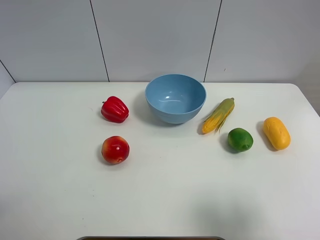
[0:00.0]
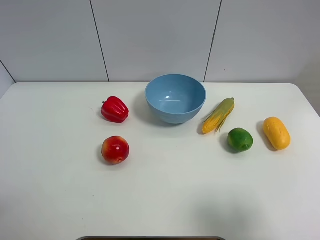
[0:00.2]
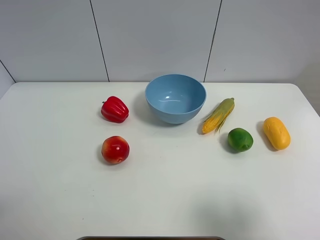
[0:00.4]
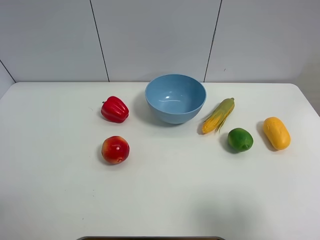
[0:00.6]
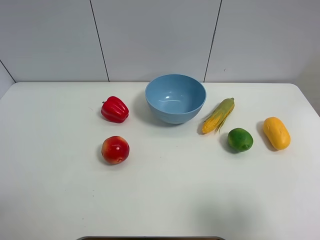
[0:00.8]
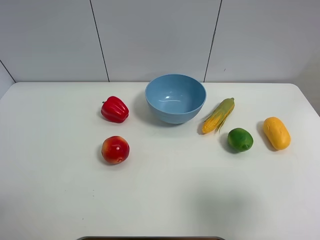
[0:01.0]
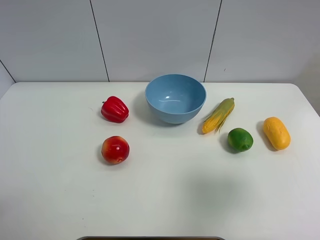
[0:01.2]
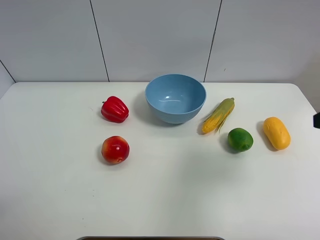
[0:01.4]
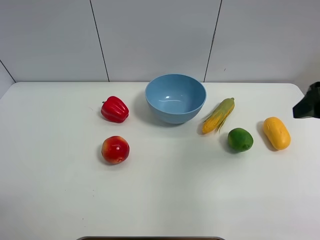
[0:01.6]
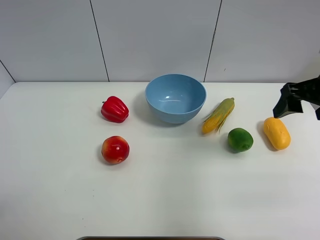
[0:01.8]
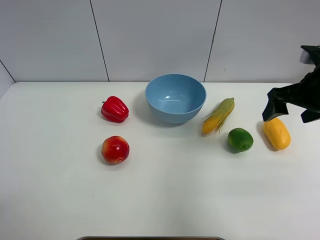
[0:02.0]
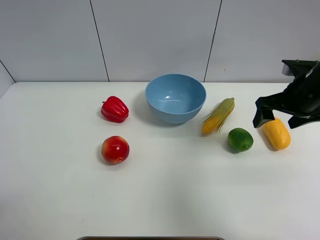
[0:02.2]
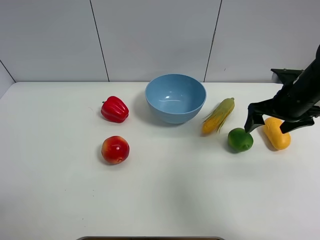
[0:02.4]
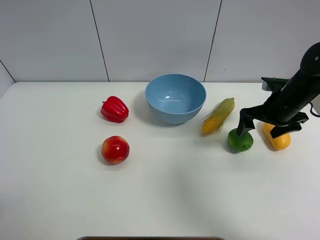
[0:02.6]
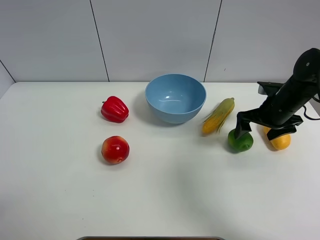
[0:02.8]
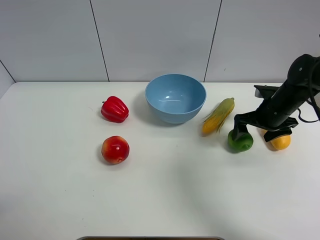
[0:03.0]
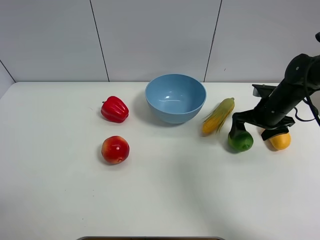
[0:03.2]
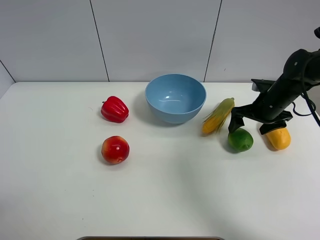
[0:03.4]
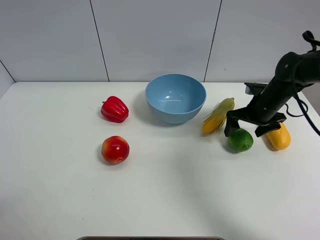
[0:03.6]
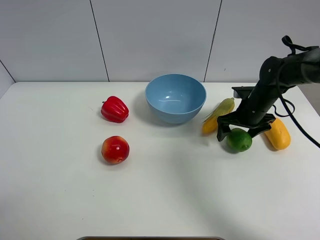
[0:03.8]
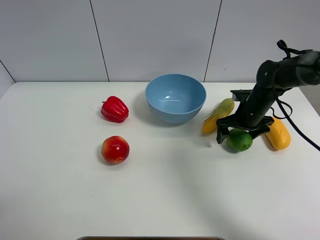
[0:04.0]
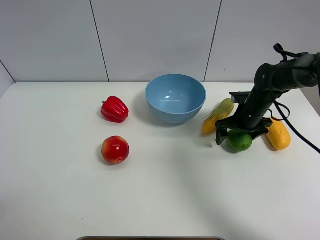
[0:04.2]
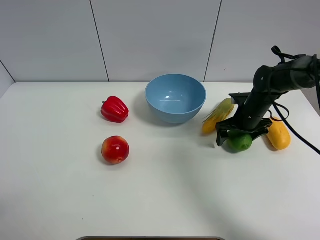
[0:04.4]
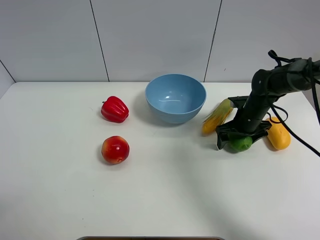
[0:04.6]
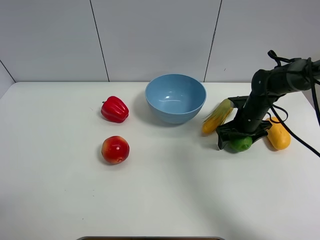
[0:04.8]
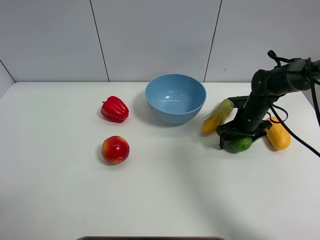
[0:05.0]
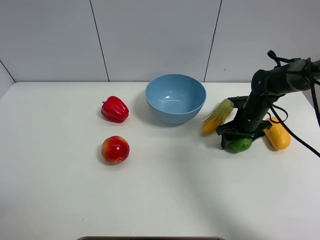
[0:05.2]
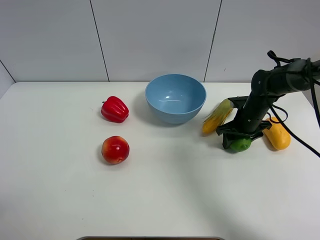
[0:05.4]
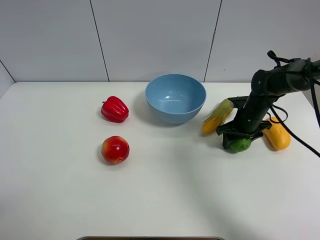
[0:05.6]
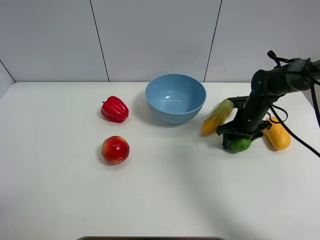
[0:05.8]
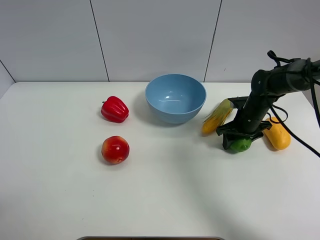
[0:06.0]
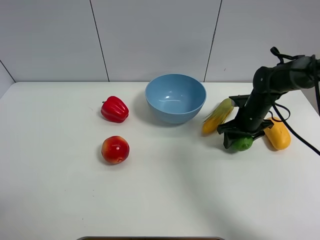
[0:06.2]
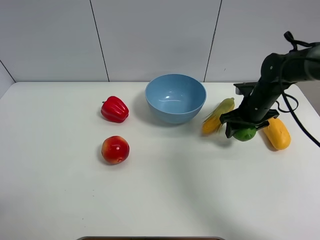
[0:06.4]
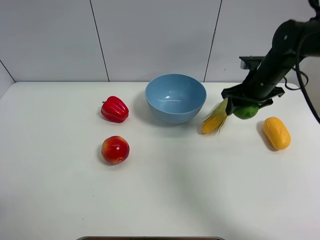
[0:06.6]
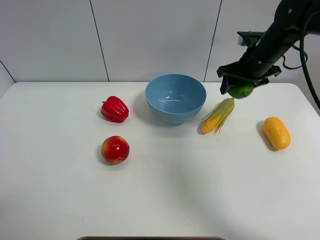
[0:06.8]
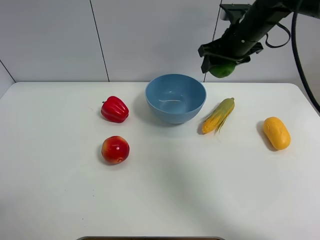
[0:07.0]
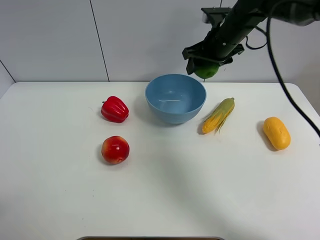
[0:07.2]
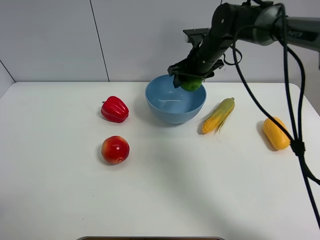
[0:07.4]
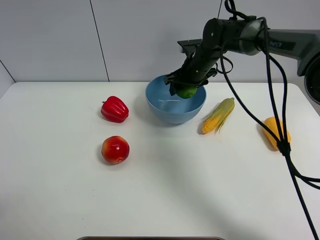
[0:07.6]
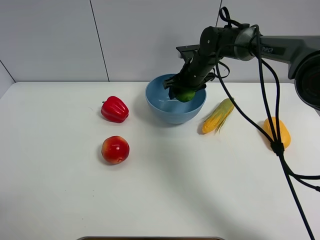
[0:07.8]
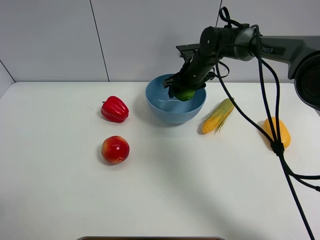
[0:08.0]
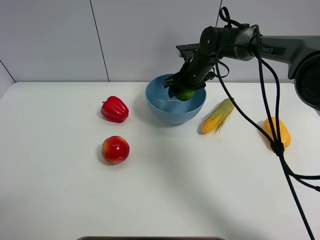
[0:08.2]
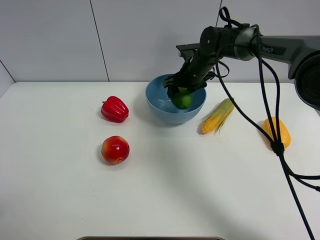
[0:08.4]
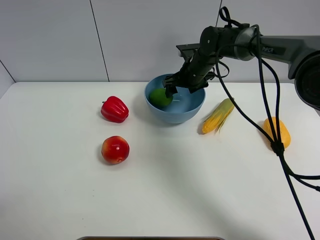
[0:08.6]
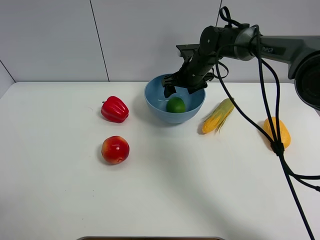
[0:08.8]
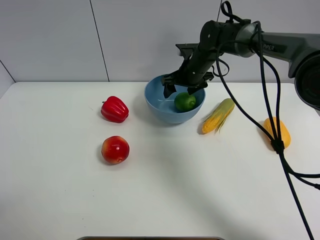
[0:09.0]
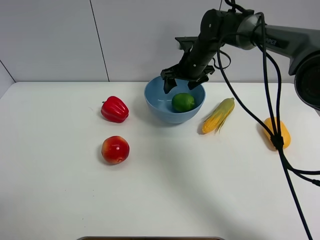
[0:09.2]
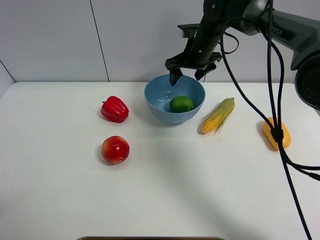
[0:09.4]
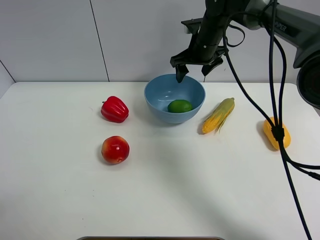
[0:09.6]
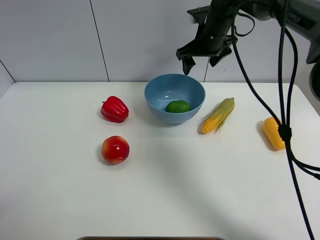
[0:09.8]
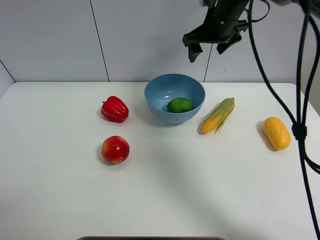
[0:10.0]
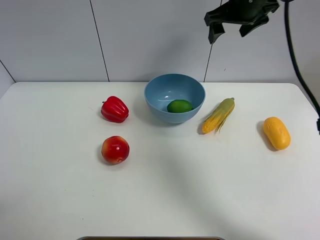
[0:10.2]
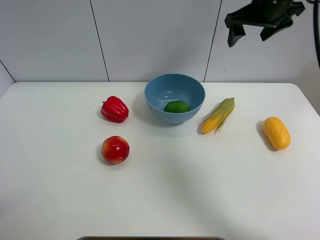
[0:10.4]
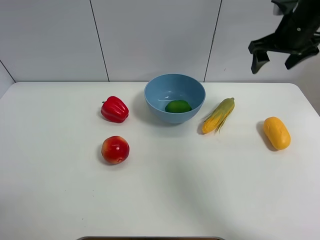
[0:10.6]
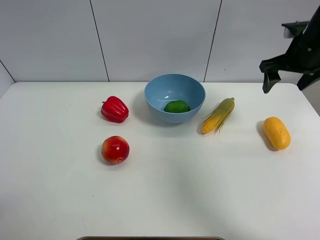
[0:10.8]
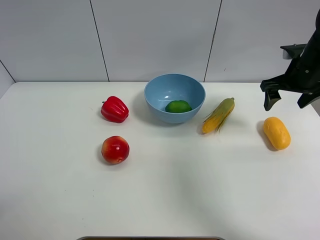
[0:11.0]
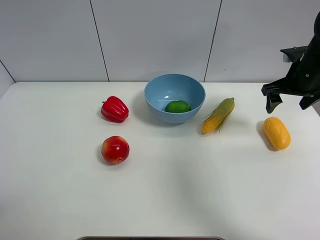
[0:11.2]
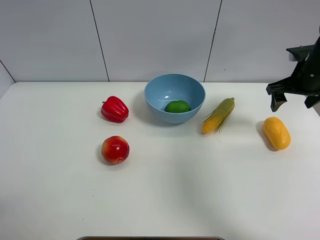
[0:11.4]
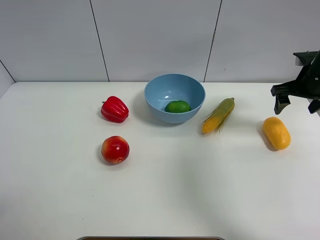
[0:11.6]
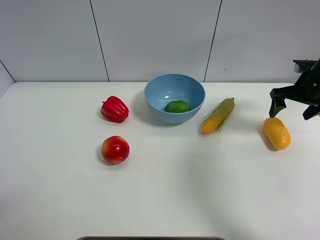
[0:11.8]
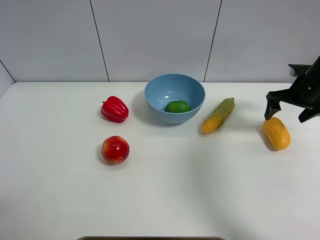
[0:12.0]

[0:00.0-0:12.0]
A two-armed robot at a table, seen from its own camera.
Task of the whole recording: Put the three fruits on the table into a bowl.
Step, 0:00.0 to 0:05.4: Grasp the green lemon with right gripper.
Step, 0:05.6 to 0:08.6: Place the green lemon in the blue bowl with right gripper.
0:00.0 to 0:01.6: The right gripper goes roughly 20 cm forward.
0:01.6 to 0:03.0: The right gripper heads downward and forward, covering approximately 25 cm.
0:03.0 to 0:04.4: The right gripper shifts by approximately 5 cm.
0:04.4 to 0:06.0: The right gripper closes.
0:06.0 to 0:07.6: The right gripper heads to the left, upward and forward, covering approximately 20 cm.
0:07.6 to 0:09.0: The right gripper opens up.
0:09.0 to 0:10.4: The right gripper goes about 20 cm upward and to the right.
0:10.4 to 0:12.0: The right gripper travels downward and to the right by some 20 cm.

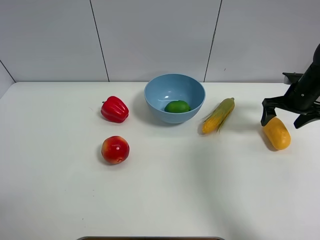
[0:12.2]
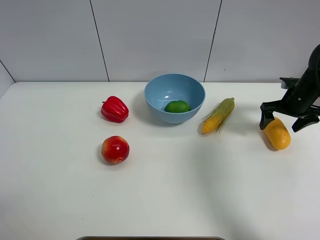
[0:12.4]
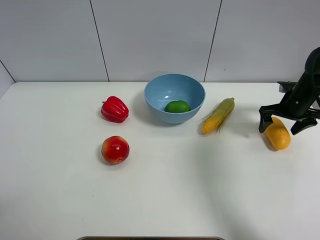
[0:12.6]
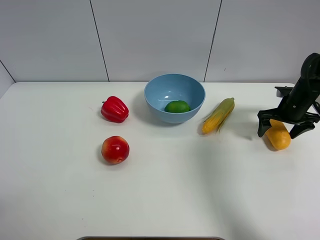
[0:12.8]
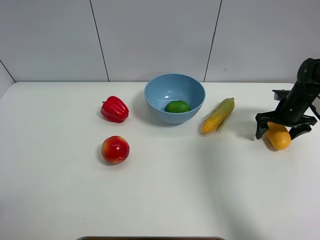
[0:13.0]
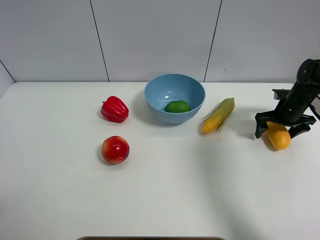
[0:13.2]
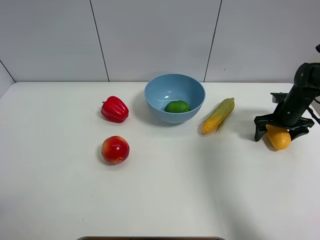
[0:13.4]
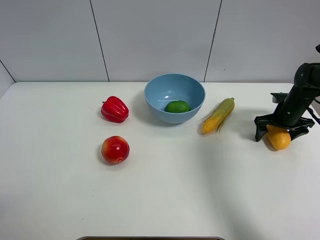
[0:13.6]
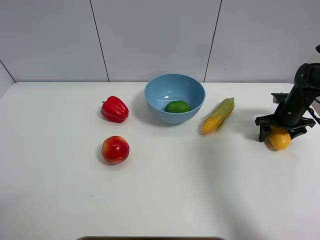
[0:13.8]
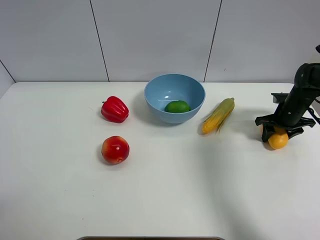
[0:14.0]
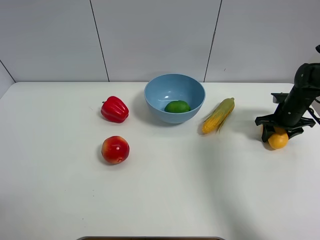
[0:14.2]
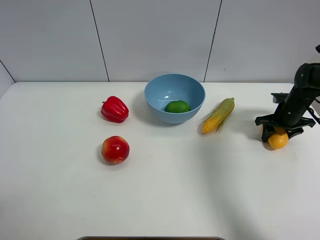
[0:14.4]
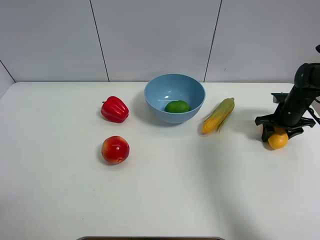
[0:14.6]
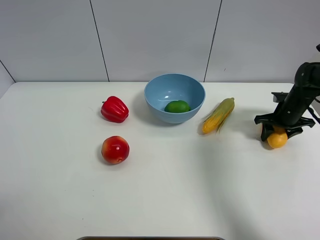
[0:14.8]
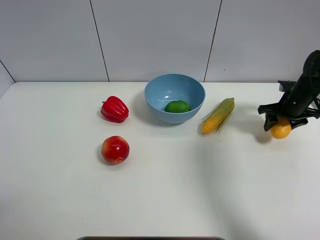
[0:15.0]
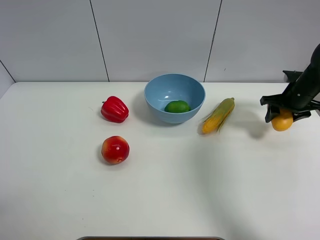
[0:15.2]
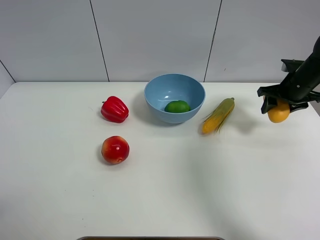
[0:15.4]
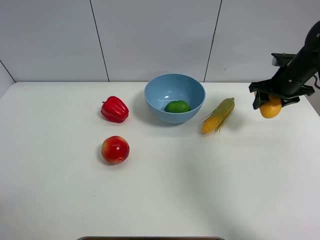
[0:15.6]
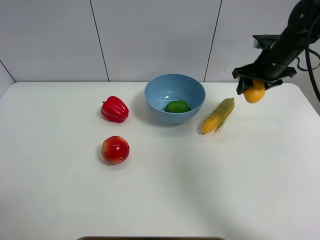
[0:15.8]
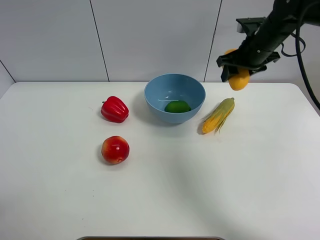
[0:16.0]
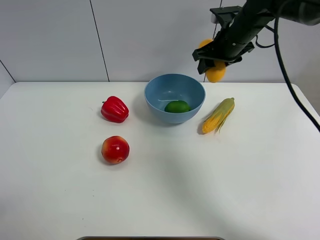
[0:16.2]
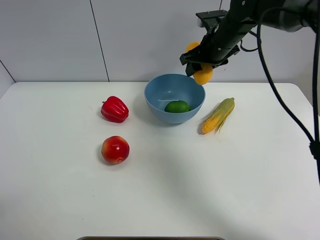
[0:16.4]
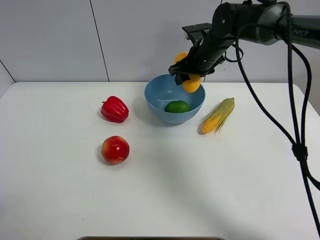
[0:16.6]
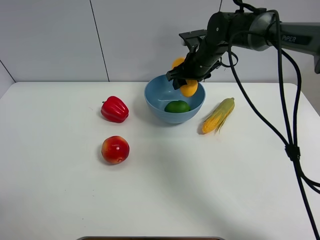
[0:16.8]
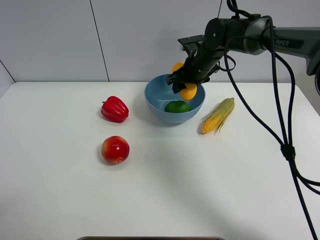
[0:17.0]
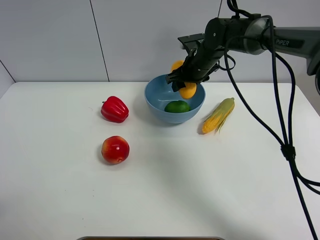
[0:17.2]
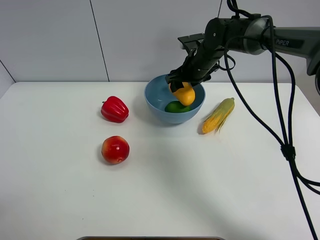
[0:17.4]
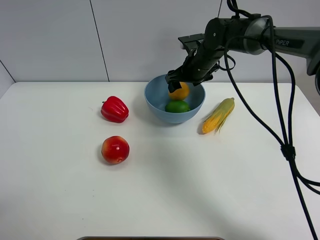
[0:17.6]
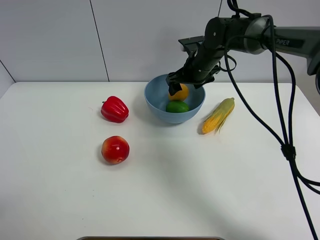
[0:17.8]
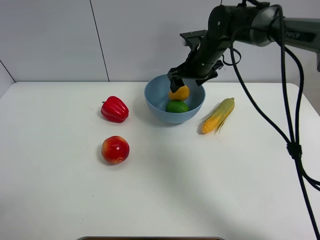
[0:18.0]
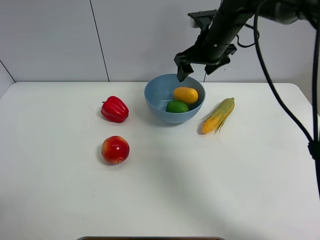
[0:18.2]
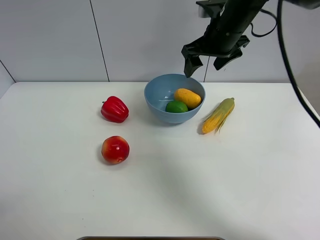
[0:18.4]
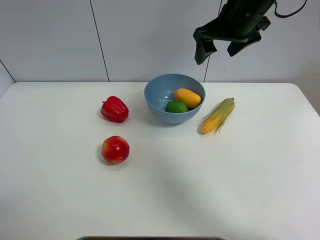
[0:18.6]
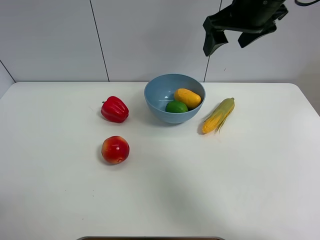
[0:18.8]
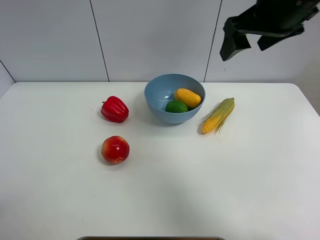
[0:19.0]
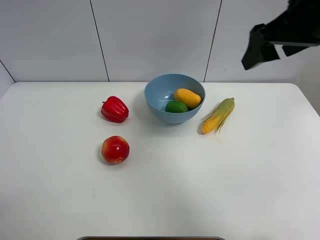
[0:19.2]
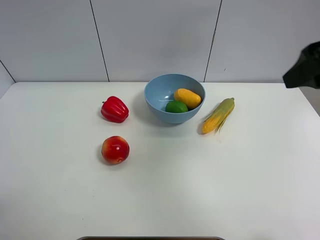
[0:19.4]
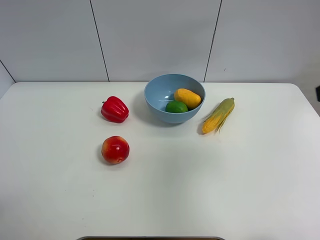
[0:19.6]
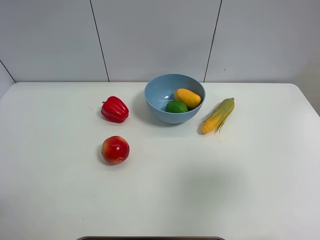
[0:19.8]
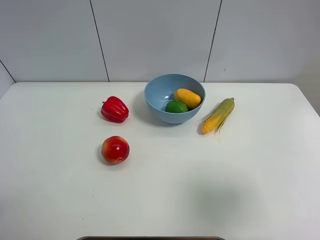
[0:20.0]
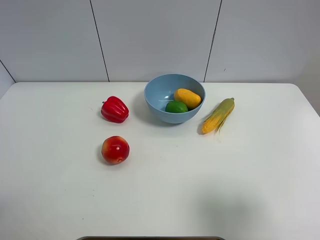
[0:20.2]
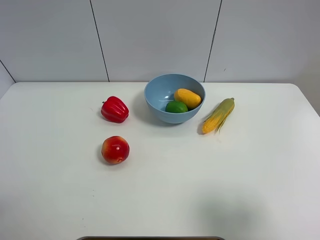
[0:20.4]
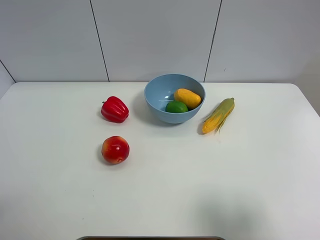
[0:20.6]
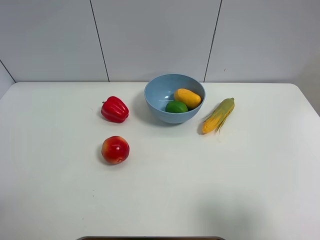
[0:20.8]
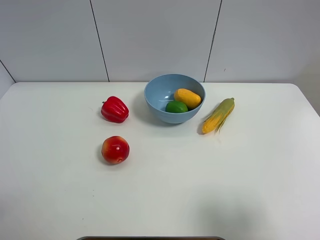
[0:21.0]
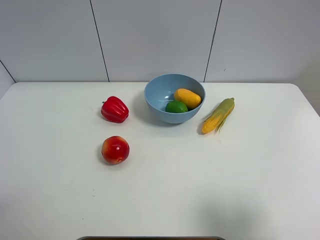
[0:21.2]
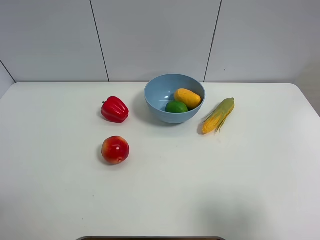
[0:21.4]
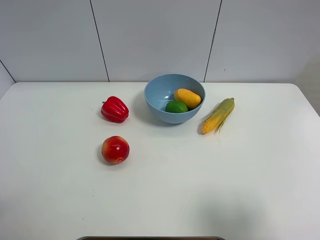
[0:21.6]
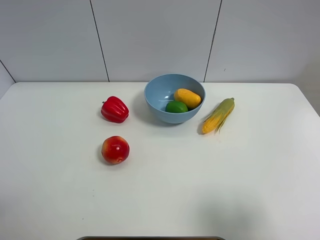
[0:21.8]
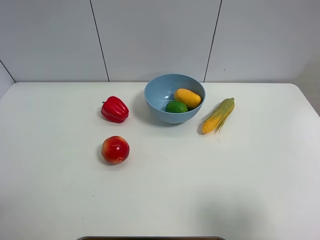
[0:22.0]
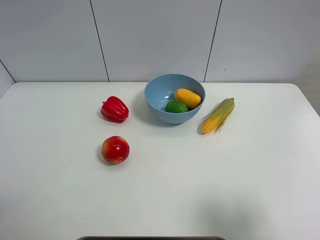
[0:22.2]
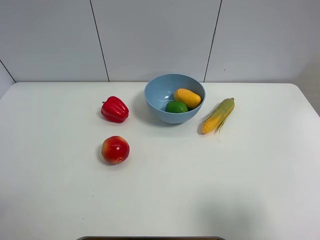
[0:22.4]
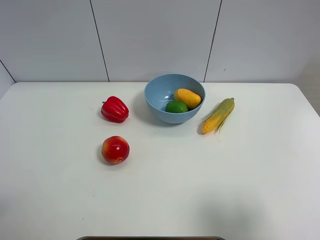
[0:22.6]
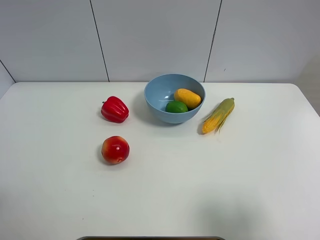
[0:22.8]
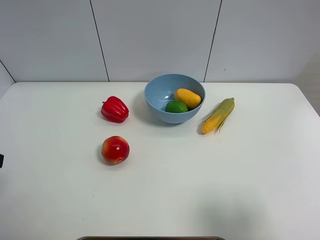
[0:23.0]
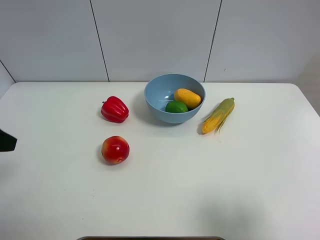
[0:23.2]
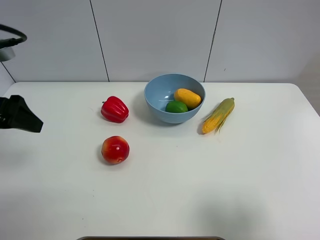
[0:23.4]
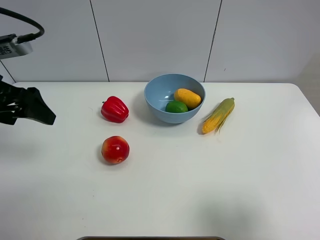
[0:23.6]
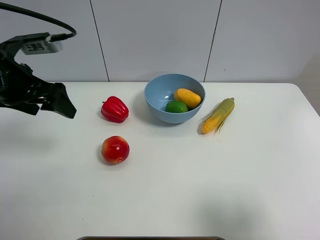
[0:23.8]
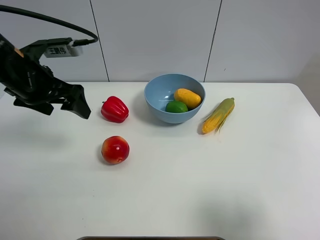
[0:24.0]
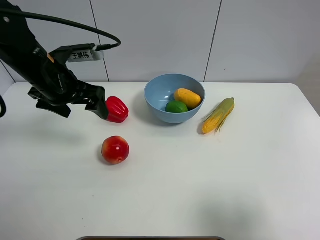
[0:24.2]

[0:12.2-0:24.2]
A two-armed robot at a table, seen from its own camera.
Task of the whole recording: Put the three fruits on the table into a bowl.
Step, 0:14.2 to 0:17.8: Place the mango in the blue bowl with right gripper.
0:12.2 to 0:13.8: The right gripper heads downward, covering roughly 5 cm, and closes up.
0:13.8 to 0:15.2: The right gripper travels upward by some 5 cm.
0:15.2 to 0:16.6: The right gripper goes about 25 cm to the left.
0:16.6 to 0:18.2: The right gripper moves upward, about 5 cm, and opens.
0:18.2 to 0:19.8: The right gripper goes about 40 cm backward and to the right.
0:19.8 to 0:21.2: The right gripper travels downward and backward by approximately 10 cm.
0:22.6 to 0:24.2: The left gripper moves forward and to the right, some 30 cm.
